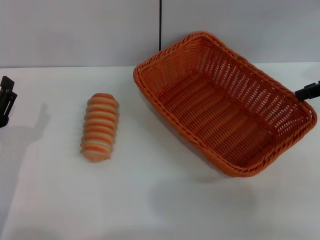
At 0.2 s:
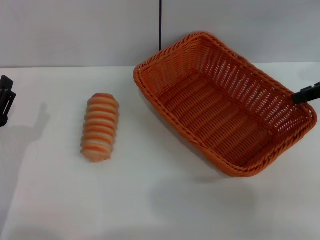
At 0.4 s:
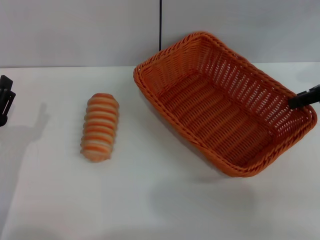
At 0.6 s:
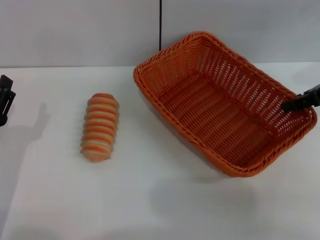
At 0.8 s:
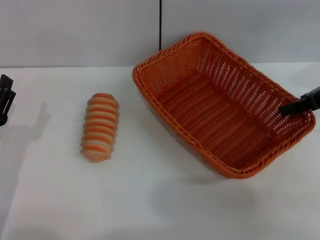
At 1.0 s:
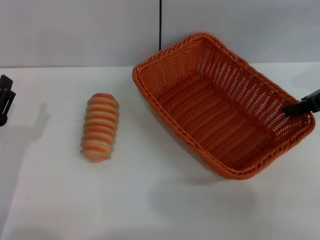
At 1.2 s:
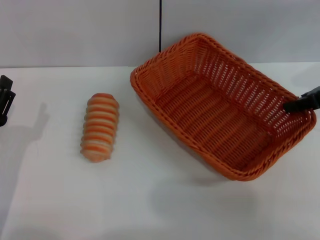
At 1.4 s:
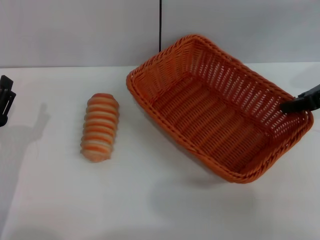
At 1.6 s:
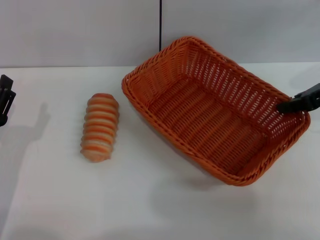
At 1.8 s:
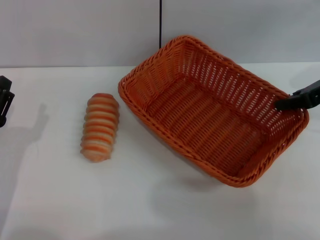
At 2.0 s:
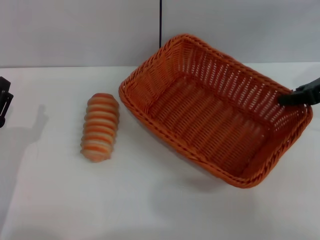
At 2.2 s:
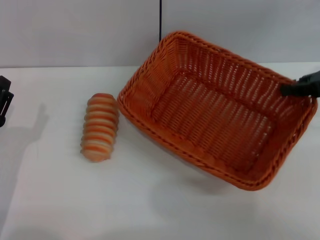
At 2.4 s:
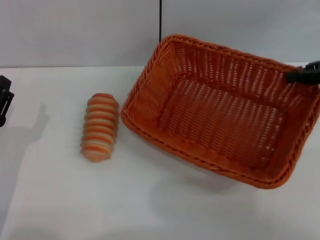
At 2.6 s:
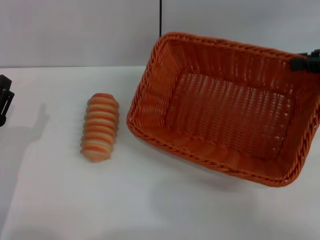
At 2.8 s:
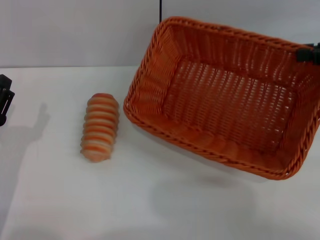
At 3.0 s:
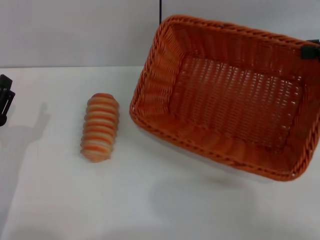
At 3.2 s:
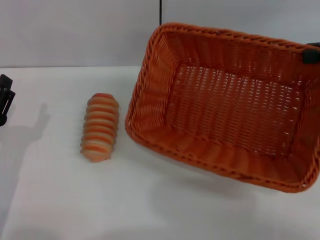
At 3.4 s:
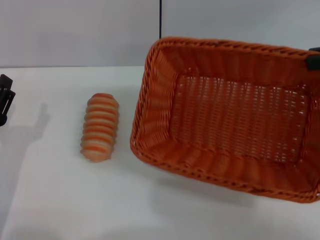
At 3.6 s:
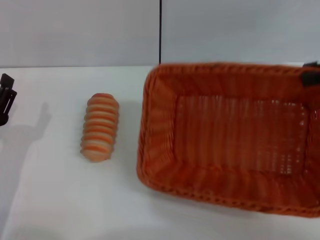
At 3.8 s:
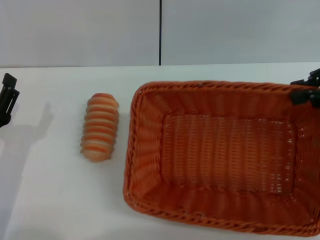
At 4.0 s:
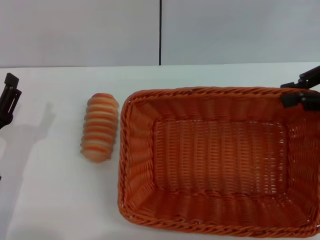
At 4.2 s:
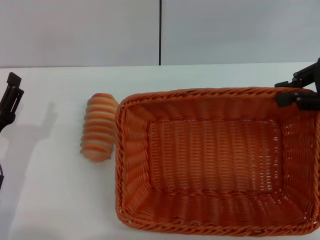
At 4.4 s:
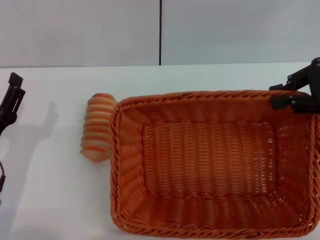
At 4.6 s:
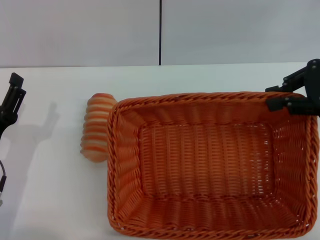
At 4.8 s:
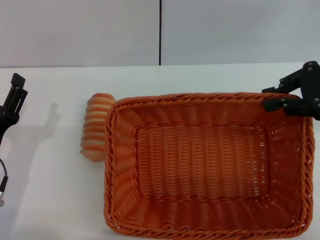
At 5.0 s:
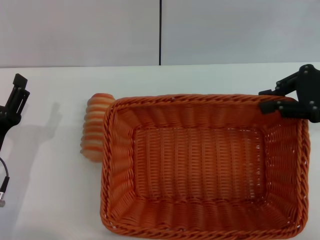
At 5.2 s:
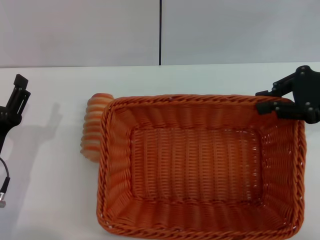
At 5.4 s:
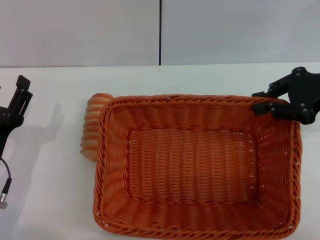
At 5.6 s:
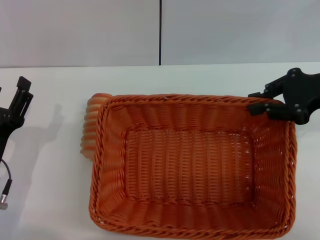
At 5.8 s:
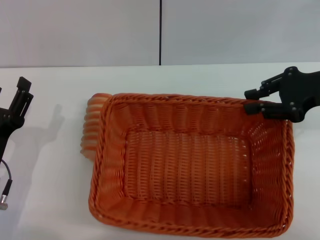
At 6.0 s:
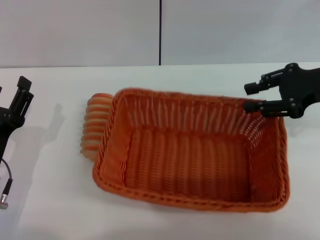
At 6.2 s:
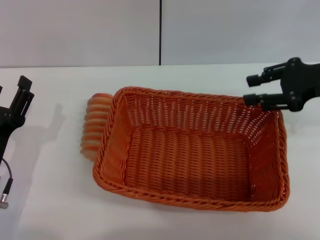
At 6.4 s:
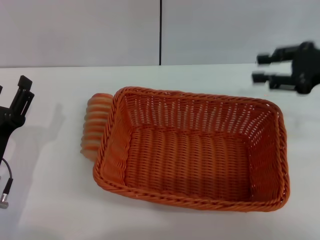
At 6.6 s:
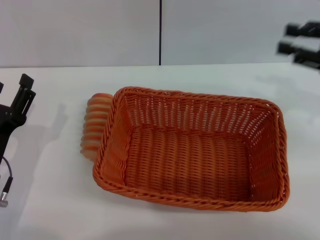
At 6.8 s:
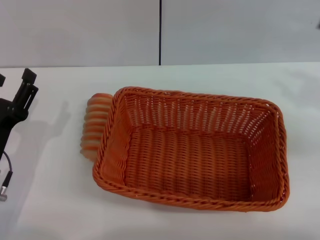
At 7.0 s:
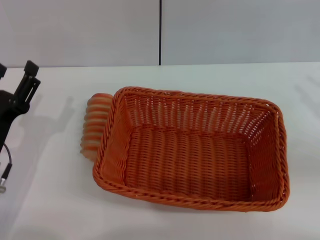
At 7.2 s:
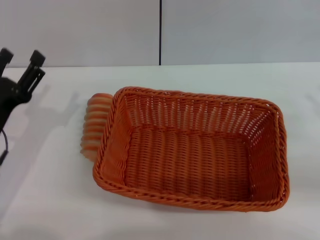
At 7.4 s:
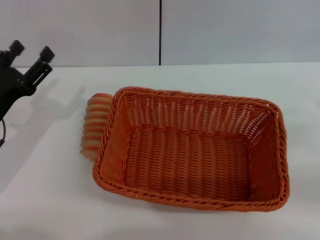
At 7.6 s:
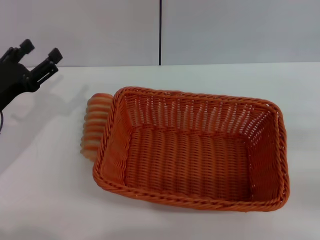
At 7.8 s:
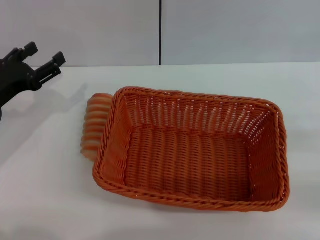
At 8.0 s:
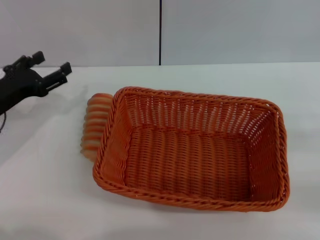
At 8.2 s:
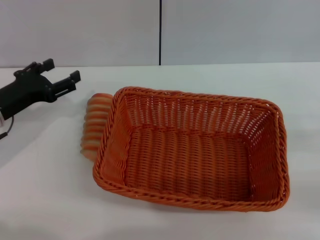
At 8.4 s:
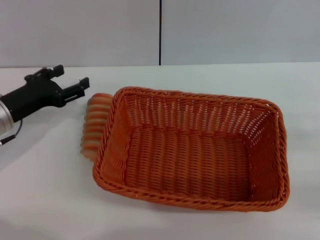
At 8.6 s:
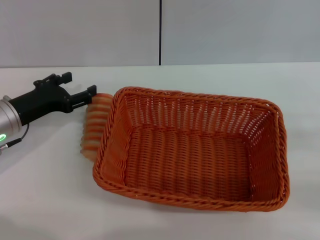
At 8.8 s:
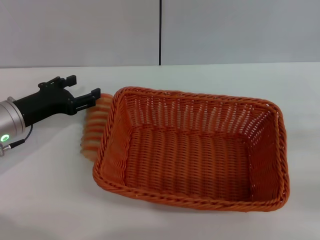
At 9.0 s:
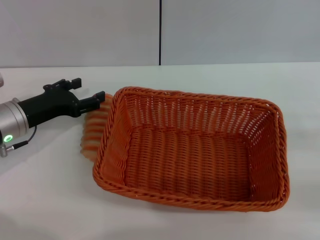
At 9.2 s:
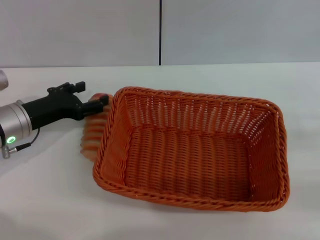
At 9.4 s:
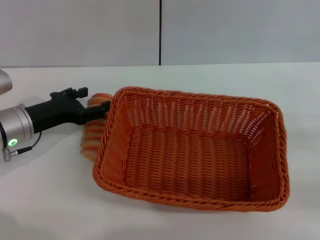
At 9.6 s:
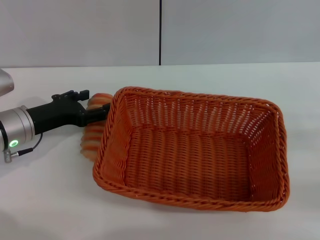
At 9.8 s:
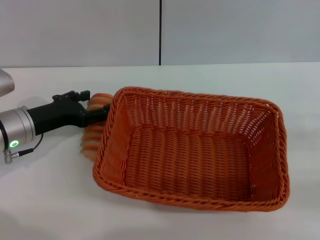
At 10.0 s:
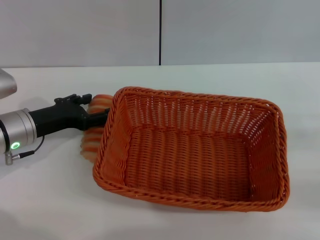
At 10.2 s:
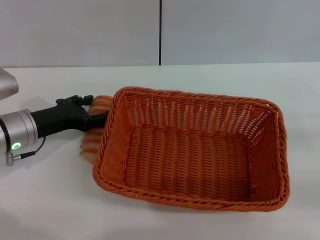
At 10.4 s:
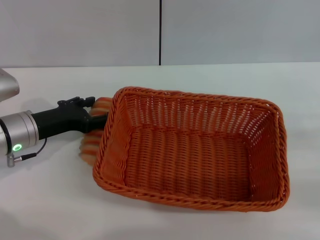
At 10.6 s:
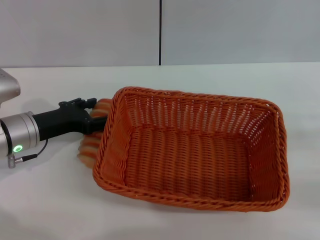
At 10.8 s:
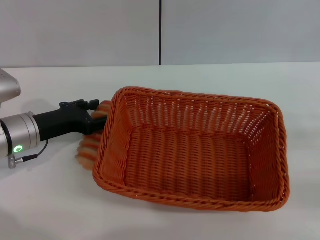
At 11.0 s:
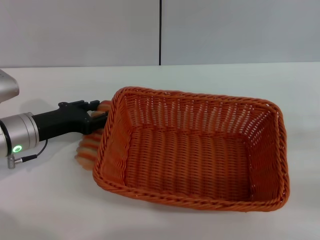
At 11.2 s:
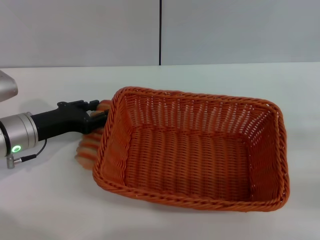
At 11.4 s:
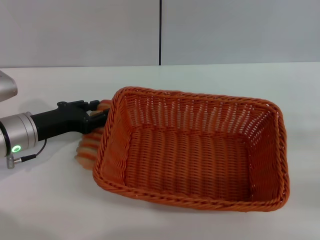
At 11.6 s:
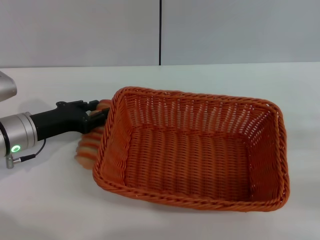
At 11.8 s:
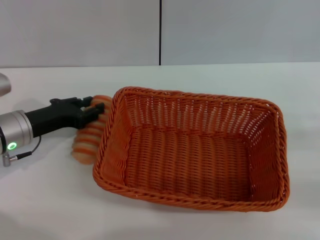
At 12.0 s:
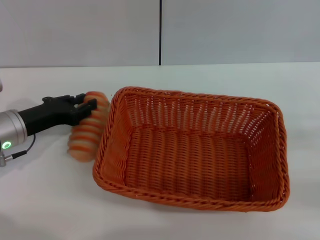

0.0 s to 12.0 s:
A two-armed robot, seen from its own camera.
Step, 0.0 to 2.8 s: Pick up the light basket with the right gripper.
Step, 3.0 to 6.2 s: Place the light basket in the center of view with the right gripper.
0.0 to 1.6 s: The right gripper closes up.
1.6 to 3.0 s: The right gripper is displaced upward by approximately 5 cm.
6.0 to 7.6 s: The left gripper is displaced forward by some 10 cm; the right gripper moves backward, to the right and downward, roughly 20 cm, and opens.
7.6 to 9.0 s: The left gripper shifts by approximately 5 cm.
9.0 to 10.4 s: The grippers move only a little.
10.4 to 12.0 s: The left gripper closes.

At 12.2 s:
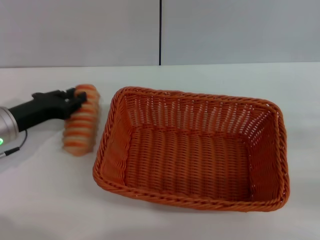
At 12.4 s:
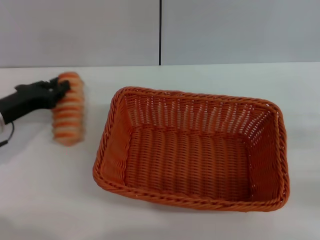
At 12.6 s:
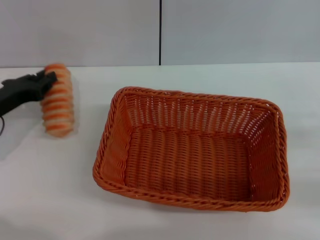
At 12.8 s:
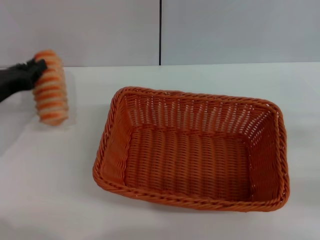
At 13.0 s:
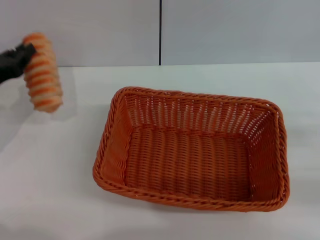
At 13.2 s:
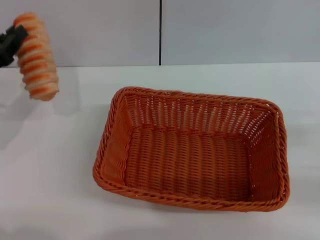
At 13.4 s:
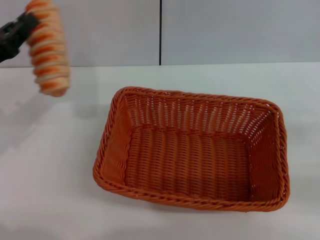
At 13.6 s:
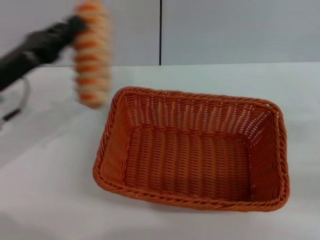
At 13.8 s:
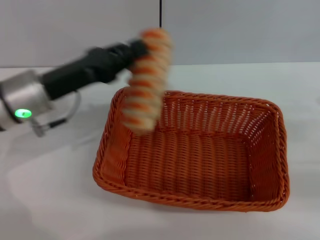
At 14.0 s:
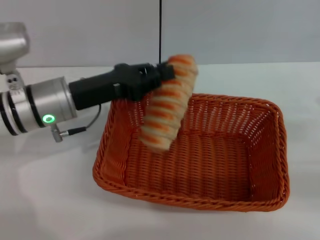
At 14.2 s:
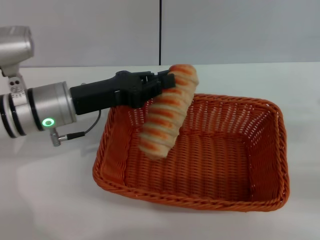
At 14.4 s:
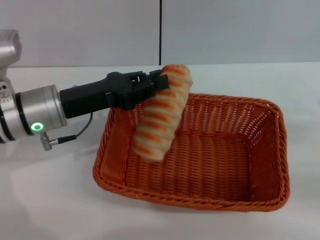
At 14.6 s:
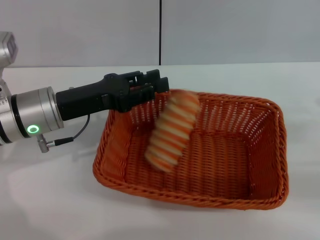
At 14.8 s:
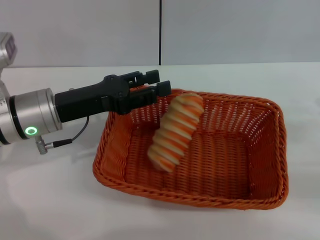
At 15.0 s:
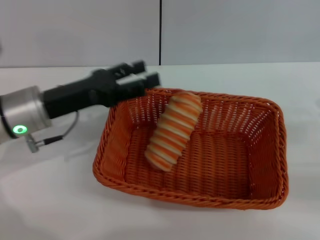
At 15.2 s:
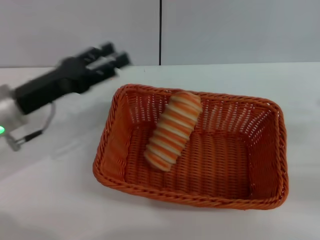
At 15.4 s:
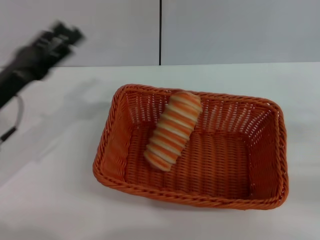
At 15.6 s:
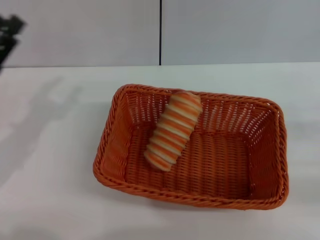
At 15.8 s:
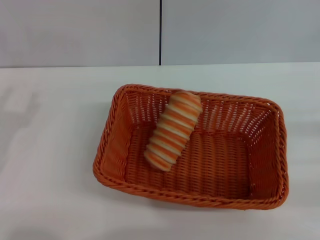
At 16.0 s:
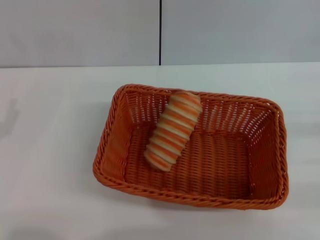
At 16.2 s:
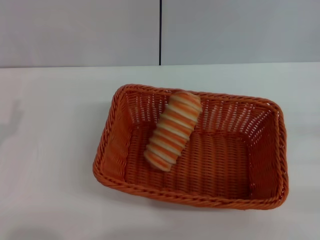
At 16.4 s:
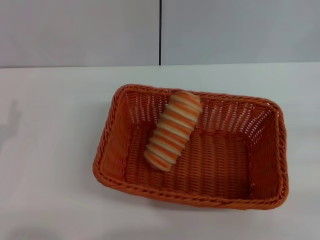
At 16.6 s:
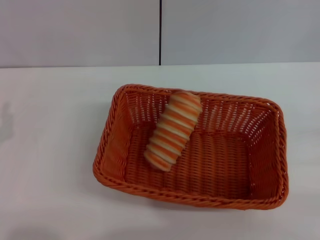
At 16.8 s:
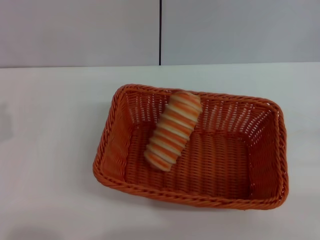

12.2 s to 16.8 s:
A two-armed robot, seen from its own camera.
Step, 12.8 to 14.8 s: Place the long bread into the light basket with the left gripper.
12.2 to 13.8 s: The left gripper shifts approximately 5 cm upward.
13.8 to 15.2 s: The left gripper opens its fingers.
15.2 to 16.8 s: The left gripper shifts roughly 15 cm backward and to the left.
